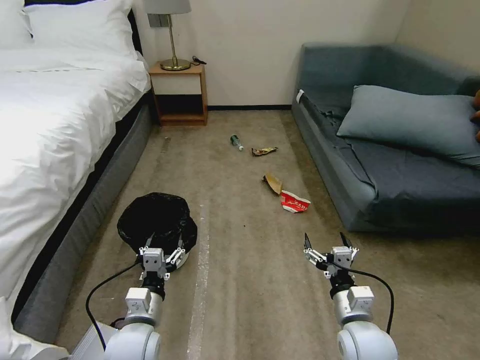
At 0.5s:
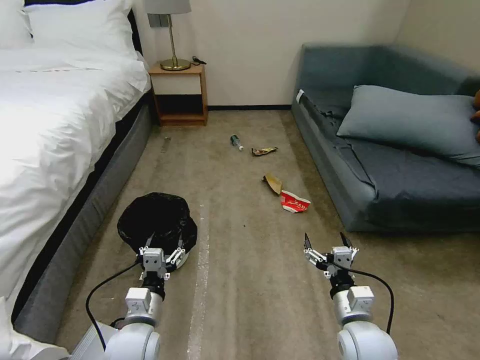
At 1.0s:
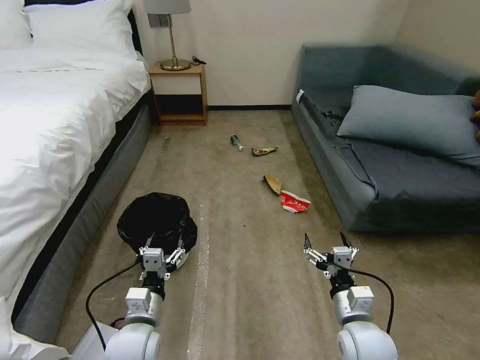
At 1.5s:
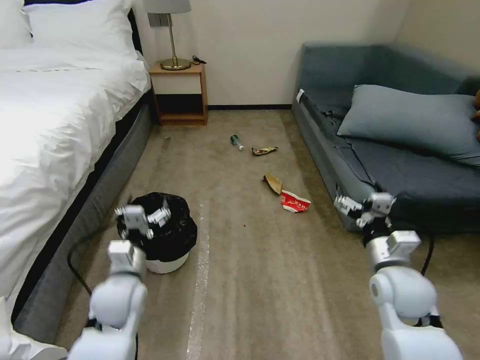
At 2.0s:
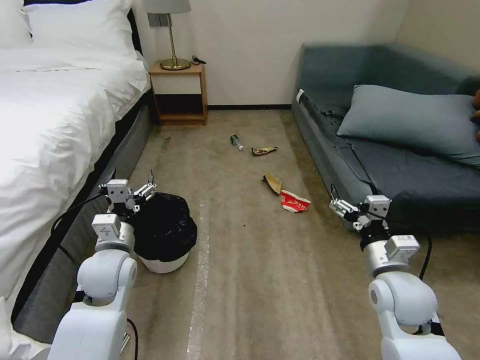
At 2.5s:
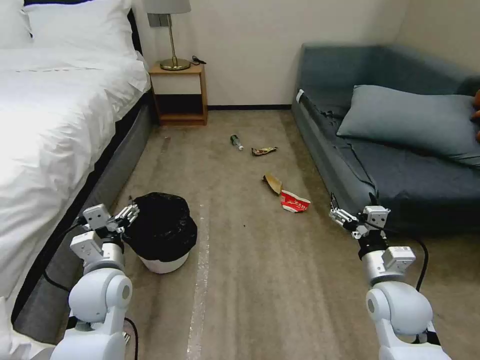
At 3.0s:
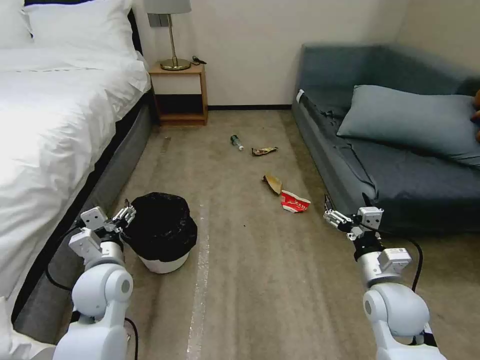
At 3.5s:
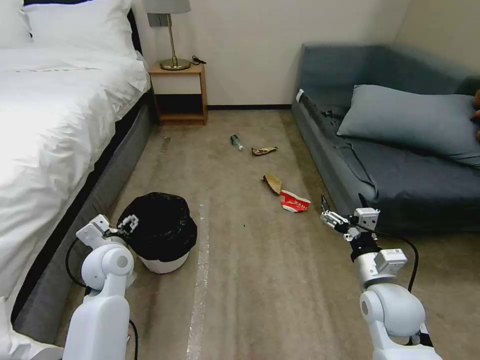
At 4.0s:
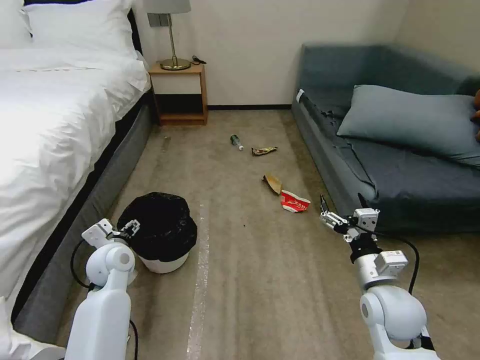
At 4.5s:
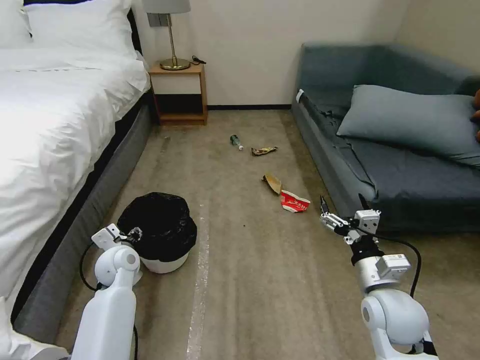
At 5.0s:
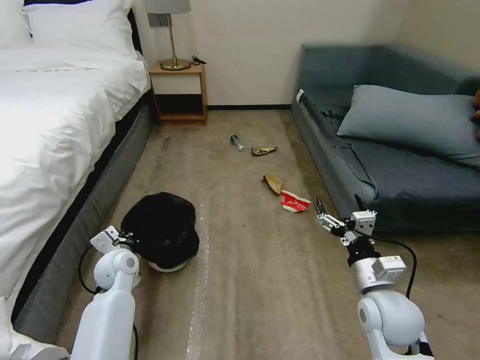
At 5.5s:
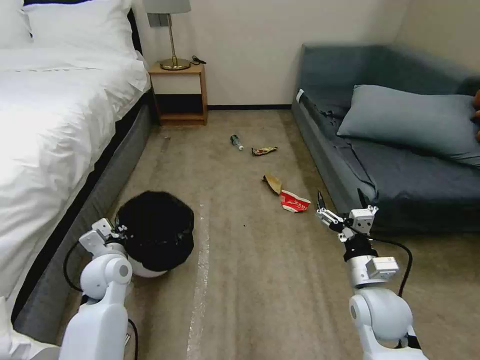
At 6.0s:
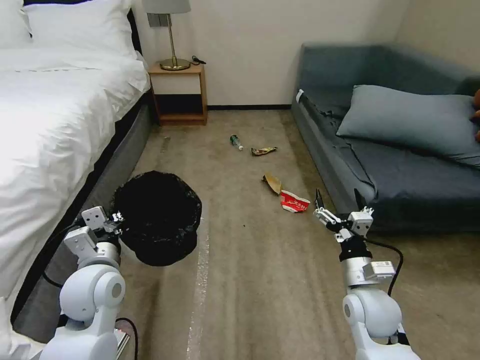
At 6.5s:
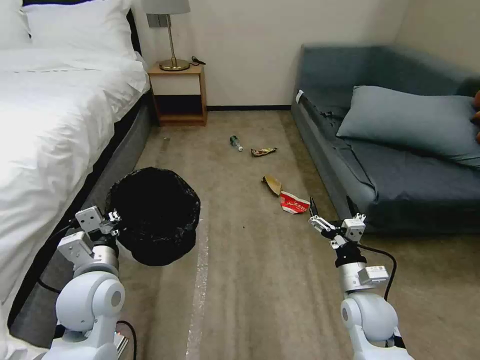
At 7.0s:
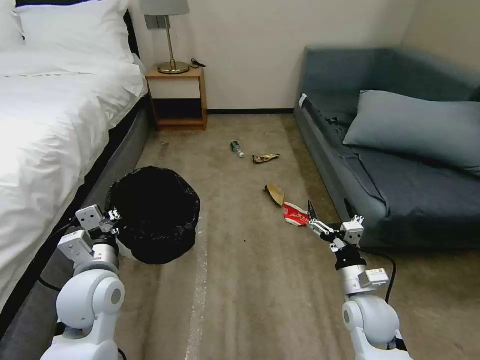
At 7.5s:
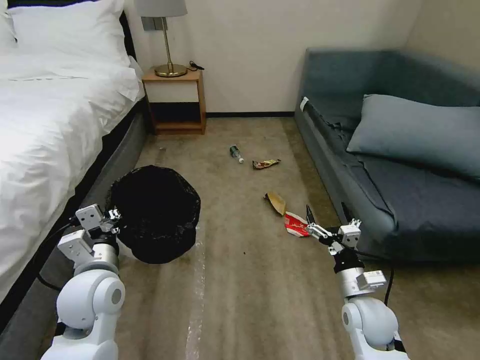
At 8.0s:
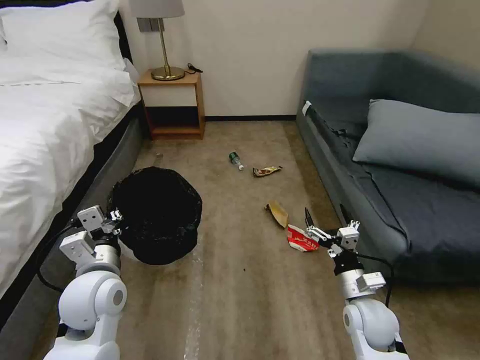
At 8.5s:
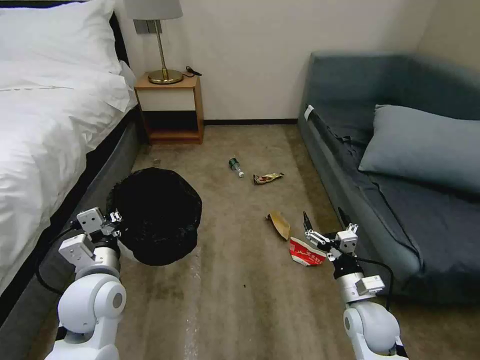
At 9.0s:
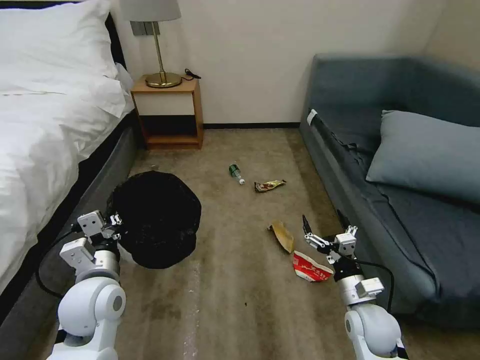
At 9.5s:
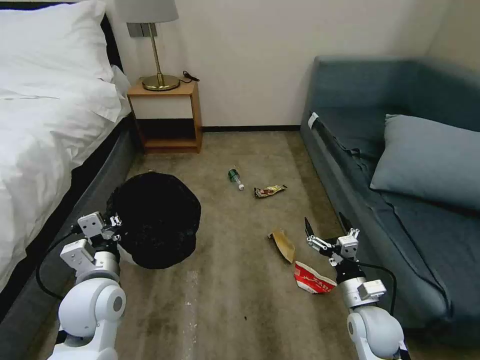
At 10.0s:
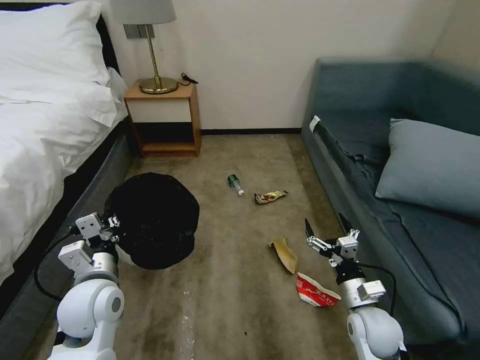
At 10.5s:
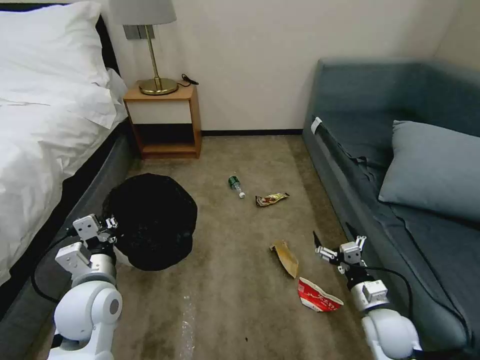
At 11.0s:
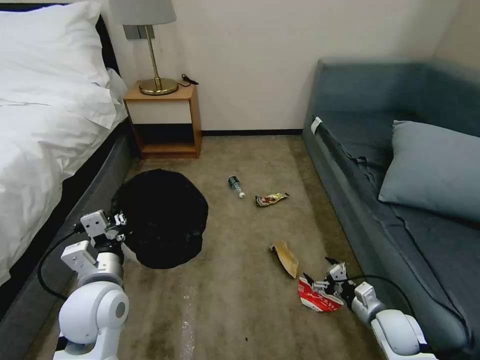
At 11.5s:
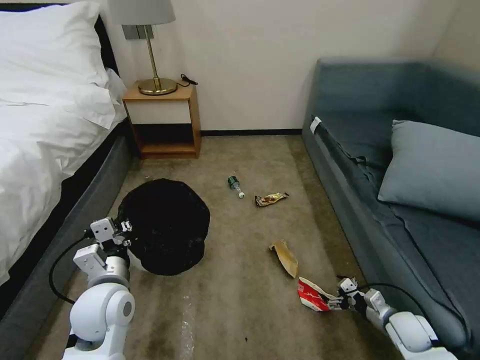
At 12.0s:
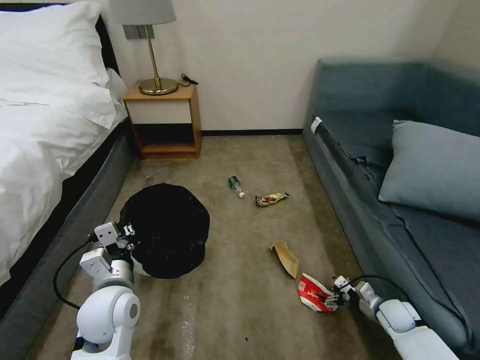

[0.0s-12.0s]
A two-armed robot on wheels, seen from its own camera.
Task of the whole recording: Pick up the trash bin, then pick up the garbage on the floor and place it into the trash bin.
2.0s to 4.0s: The left gripper shifts about 5 cm downward.
4.0s to 6.0s: The left gripper moves backward and upward, some 10 cm, and closes.
10.0s to 12.0s: The right gripper is displaced to the right and downward by about 20 cm.

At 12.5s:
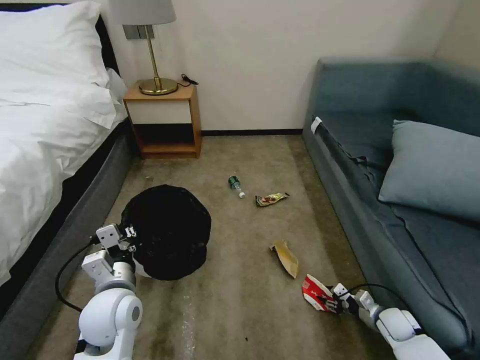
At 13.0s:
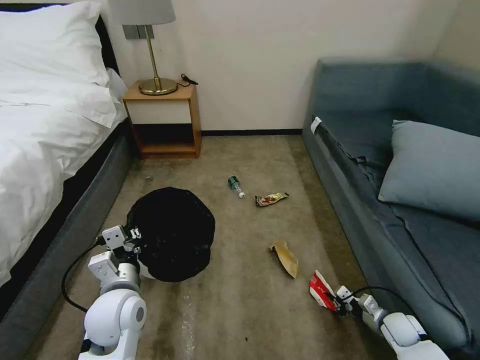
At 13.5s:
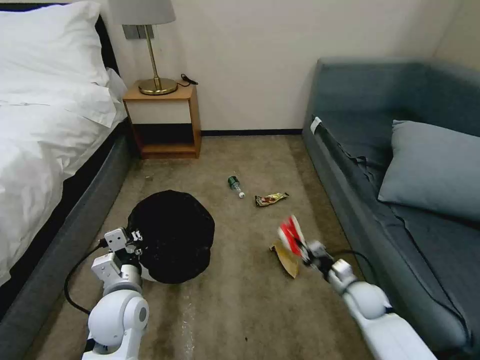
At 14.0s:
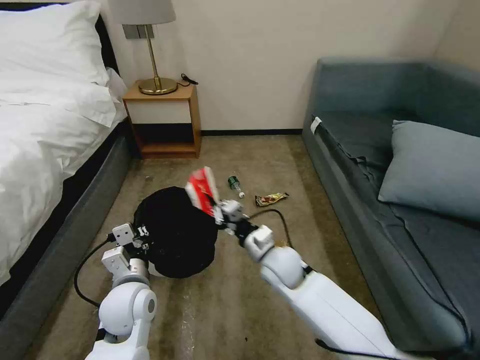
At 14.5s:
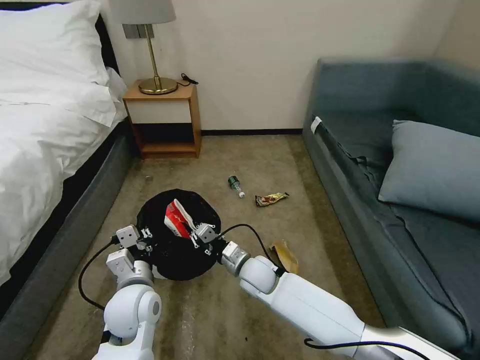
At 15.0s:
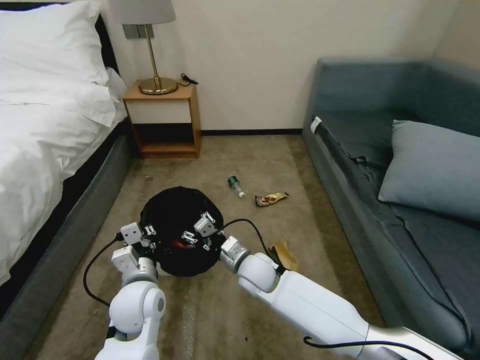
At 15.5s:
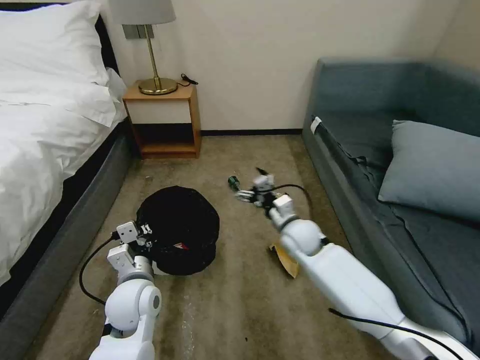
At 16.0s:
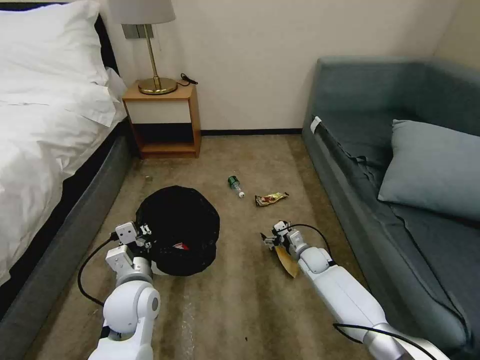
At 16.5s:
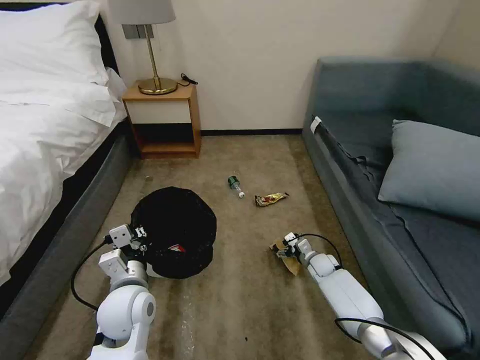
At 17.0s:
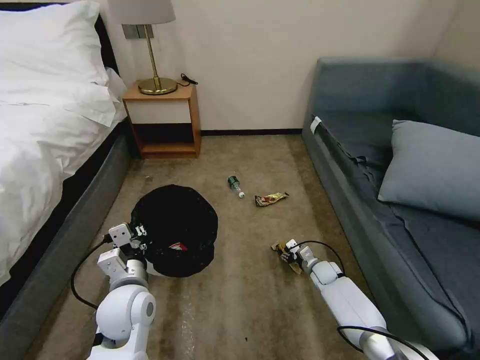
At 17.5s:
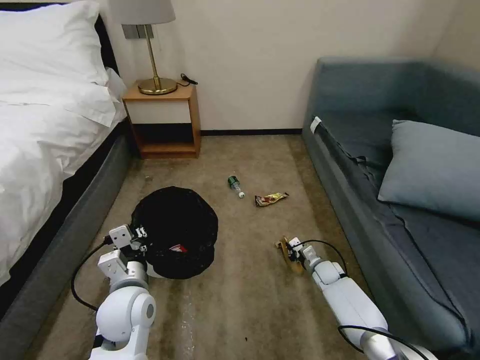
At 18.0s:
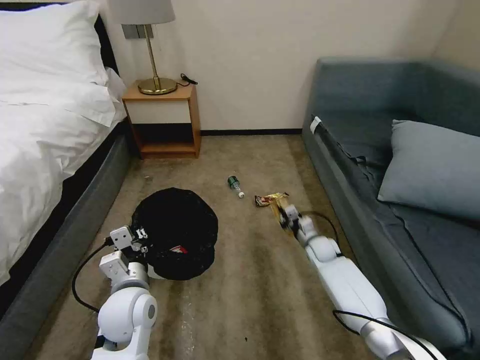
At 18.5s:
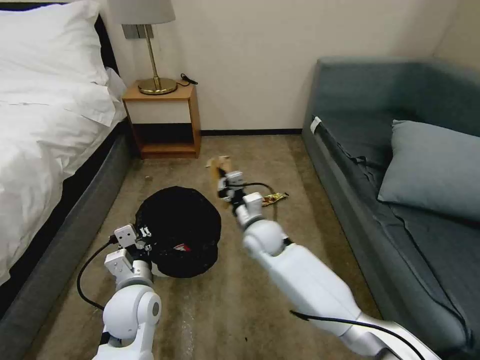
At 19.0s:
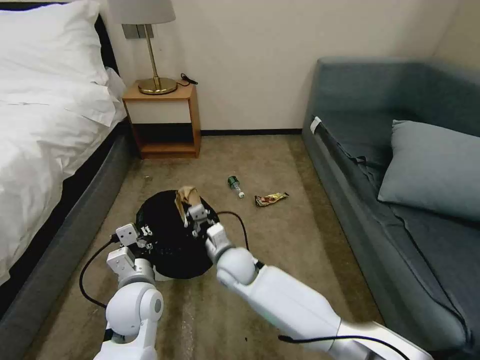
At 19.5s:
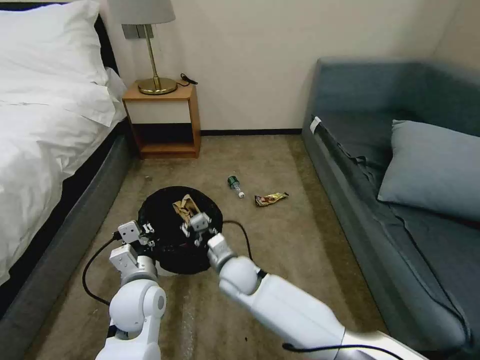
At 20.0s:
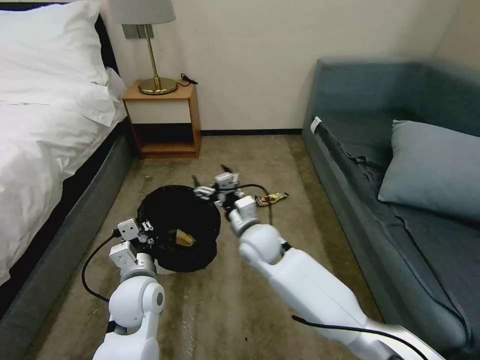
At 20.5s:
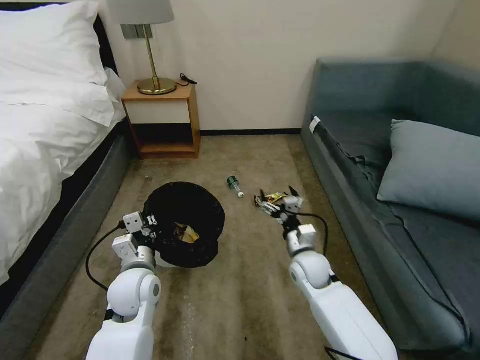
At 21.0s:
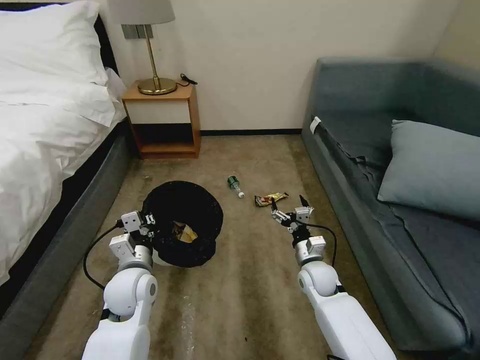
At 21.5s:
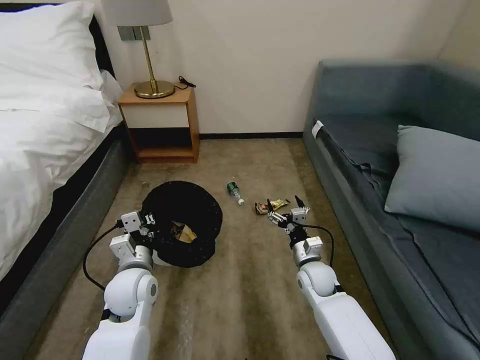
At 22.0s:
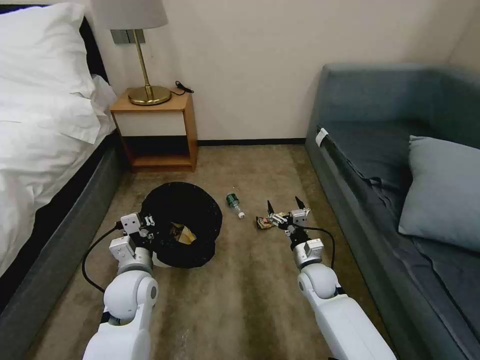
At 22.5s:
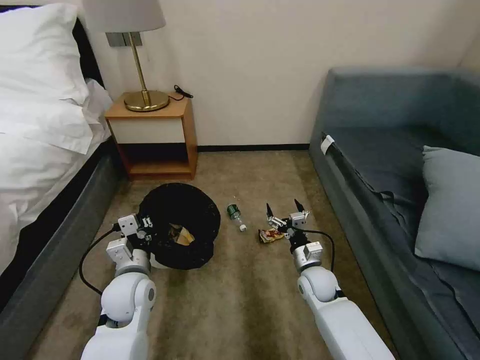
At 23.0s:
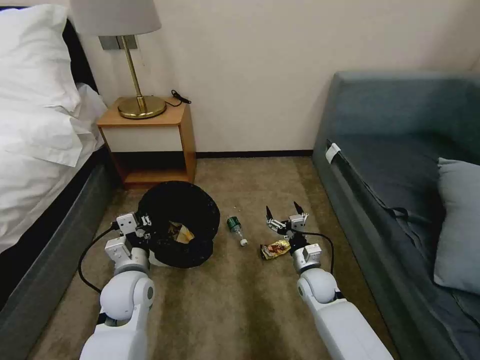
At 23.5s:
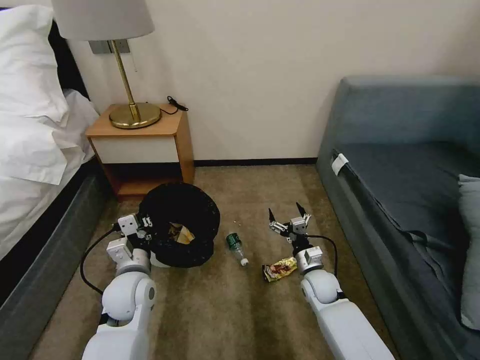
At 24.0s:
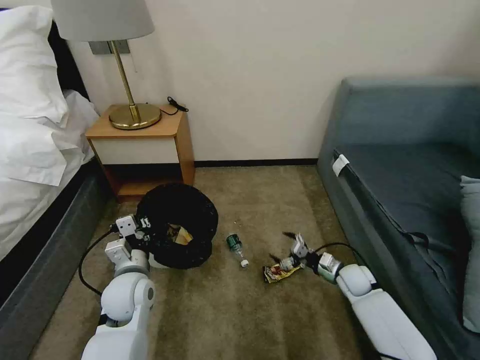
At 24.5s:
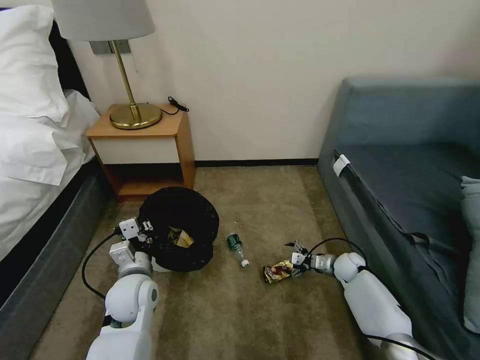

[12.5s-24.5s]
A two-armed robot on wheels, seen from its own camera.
Task of the whole recording: Pick up the trash bin, then pick up the garbage on the floor and place it into the trash bin.
12.5s to 14.5s: The right gripper travels to the left by some 40 cm, and closes up.
14.5s to 16.5s: The right gripper shifts approximately 30 cm to the right and downward, and opens.
16.5s to 18.5s: The right gripper shifts about 30 cm to the left and upward, and closes its fingers.
18.5s to 20.5s: The right gripper shifts approximately 15 cm to the right, downward and backward, and opens up.
20.5s to 22.5s: The right gripper shifts by approximately 5 cm.
22.5s to 24.5s: The right gripper is displaced to the right, forward and downward by some 20 cm.

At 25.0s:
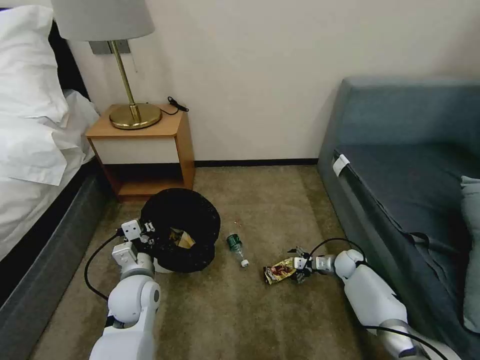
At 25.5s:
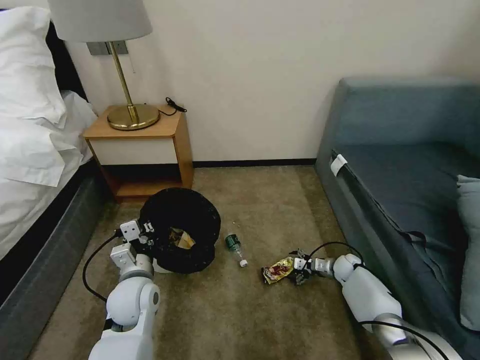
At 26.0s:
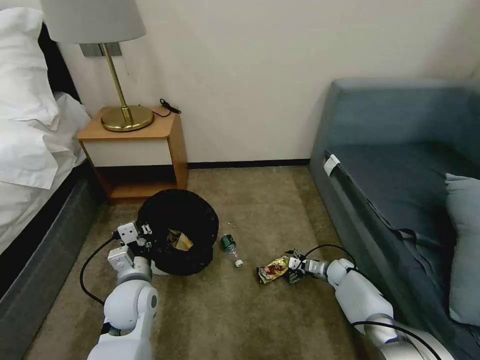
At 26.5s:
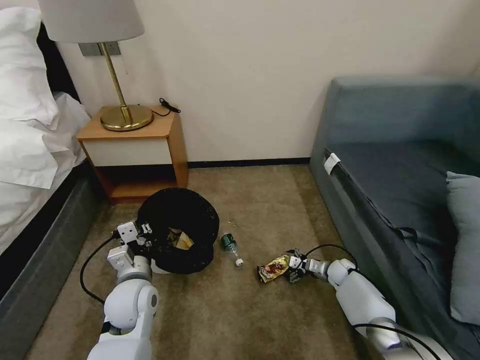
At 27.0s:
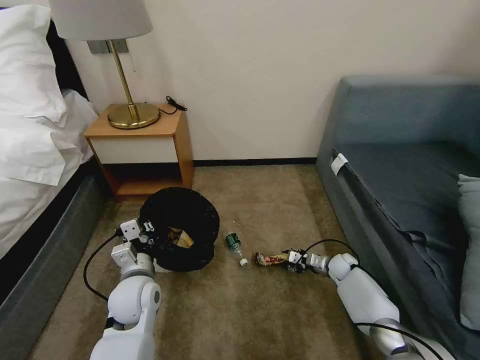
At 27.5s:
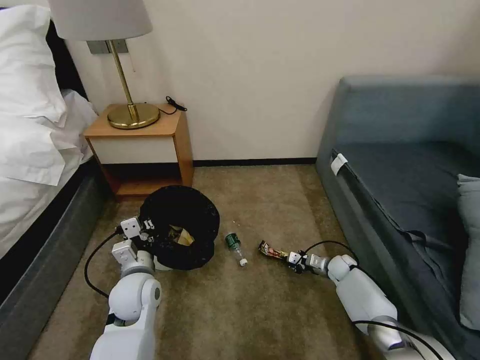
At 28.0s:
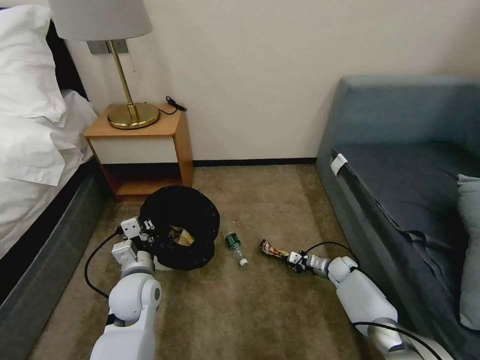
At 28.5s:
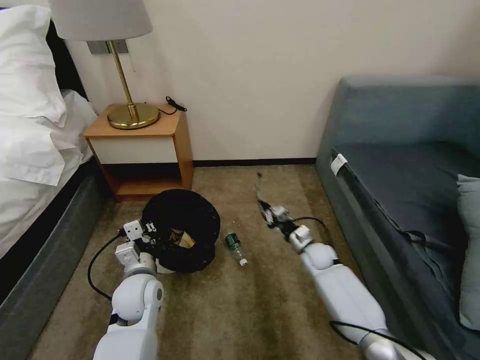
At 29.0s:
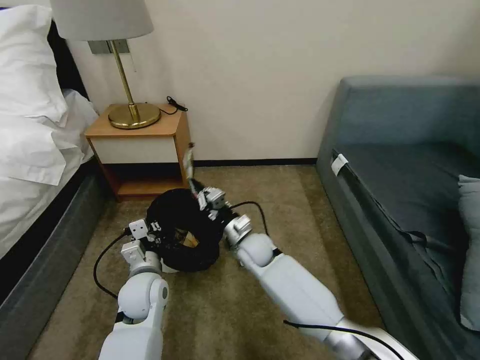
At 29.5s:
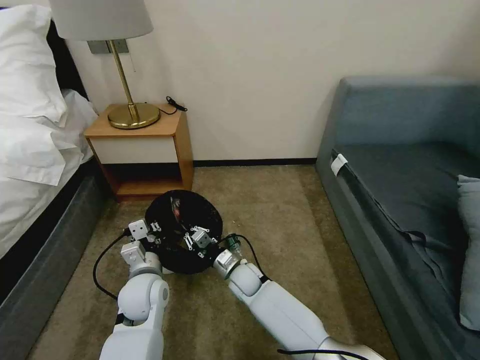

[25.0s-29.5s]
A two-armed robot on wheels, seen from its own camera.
Task of the whole recording: Pick up the trash bin, then pick up the garbage on the floor and place it into the trash bin.
25.0s to 27.0s: The right gripper closes up.
27.0s to 29.5s: The right gripper goes roughly 35 cm to the left, and closes its fingers.
